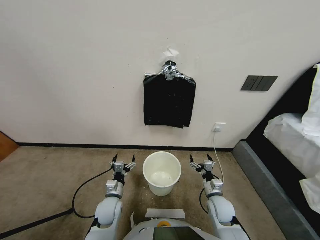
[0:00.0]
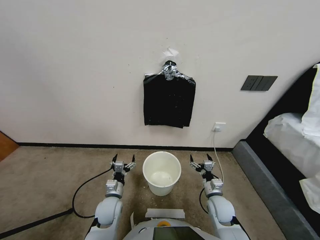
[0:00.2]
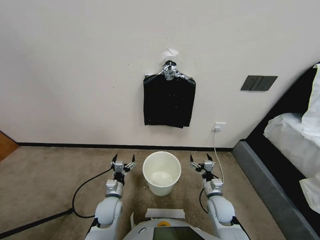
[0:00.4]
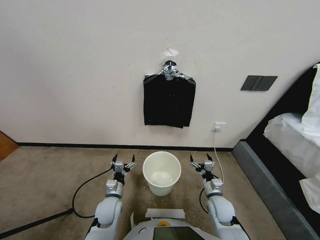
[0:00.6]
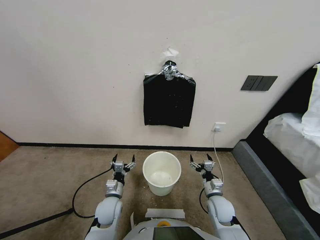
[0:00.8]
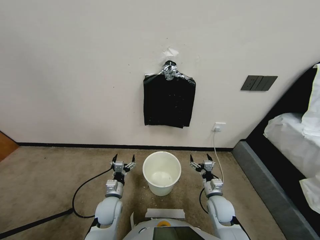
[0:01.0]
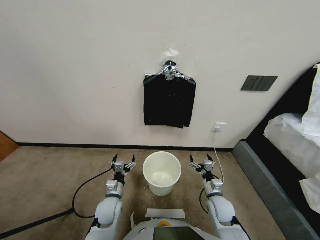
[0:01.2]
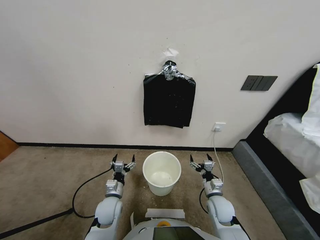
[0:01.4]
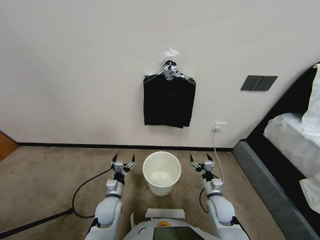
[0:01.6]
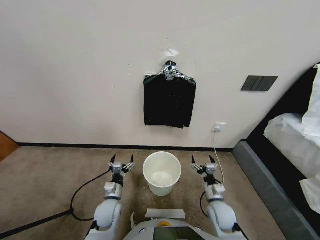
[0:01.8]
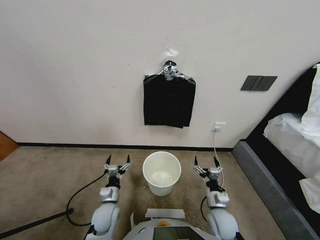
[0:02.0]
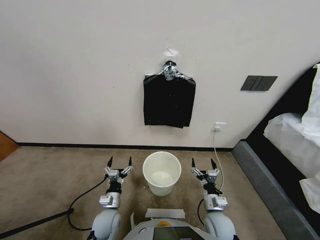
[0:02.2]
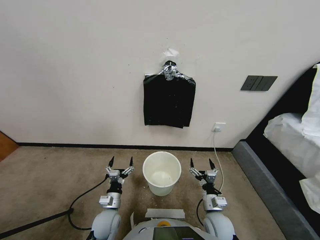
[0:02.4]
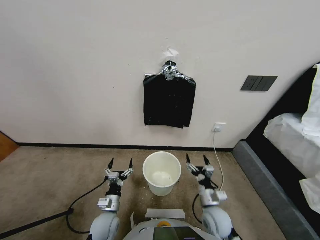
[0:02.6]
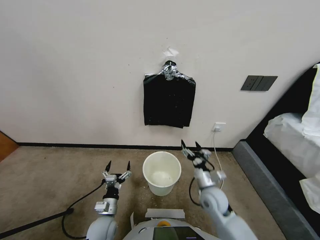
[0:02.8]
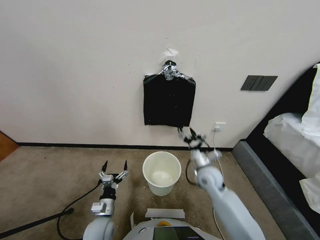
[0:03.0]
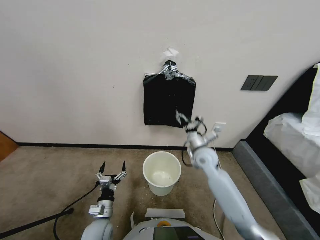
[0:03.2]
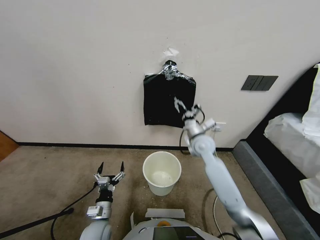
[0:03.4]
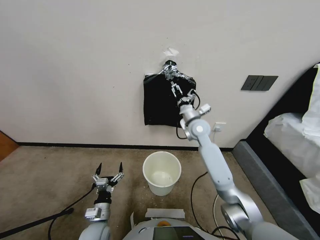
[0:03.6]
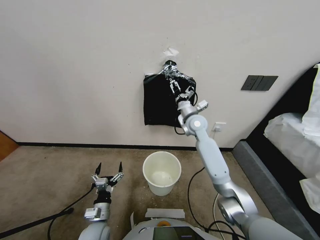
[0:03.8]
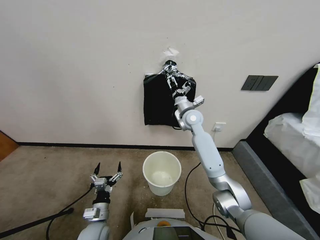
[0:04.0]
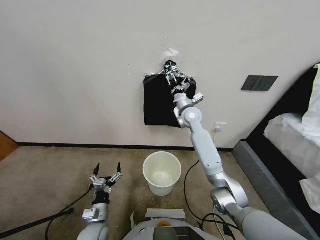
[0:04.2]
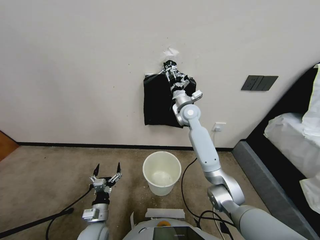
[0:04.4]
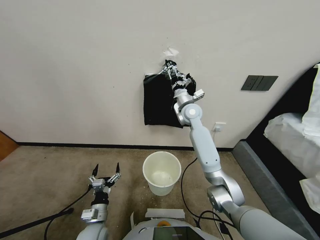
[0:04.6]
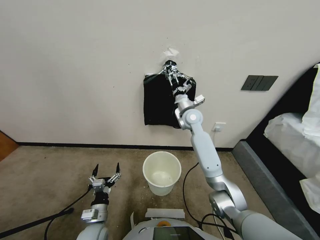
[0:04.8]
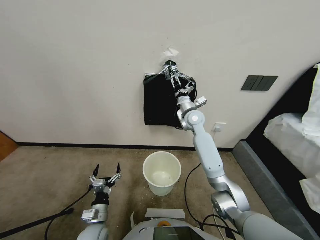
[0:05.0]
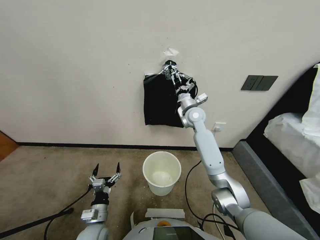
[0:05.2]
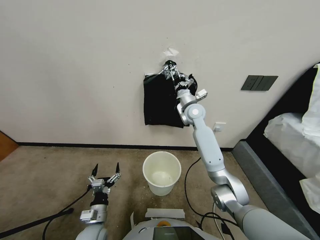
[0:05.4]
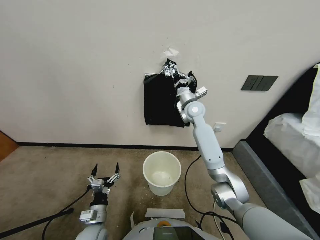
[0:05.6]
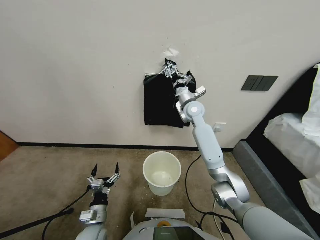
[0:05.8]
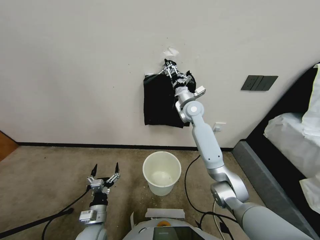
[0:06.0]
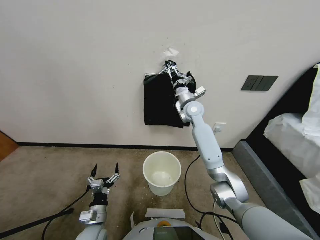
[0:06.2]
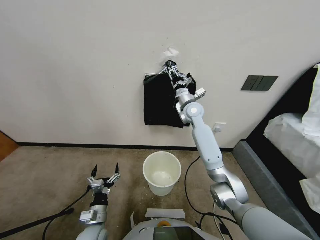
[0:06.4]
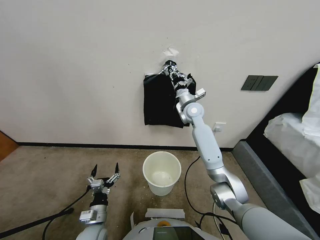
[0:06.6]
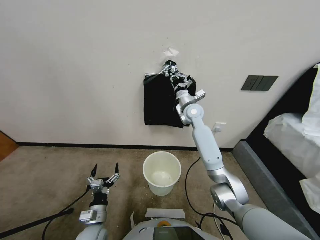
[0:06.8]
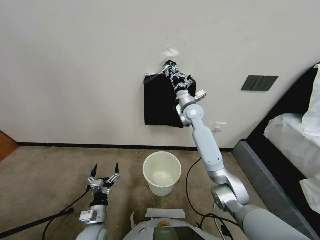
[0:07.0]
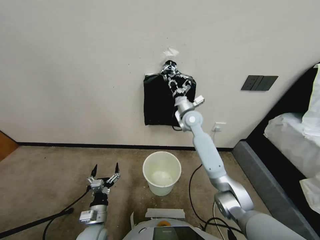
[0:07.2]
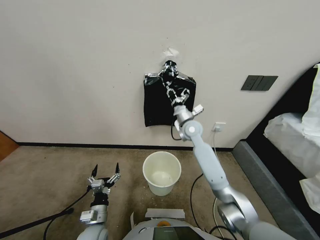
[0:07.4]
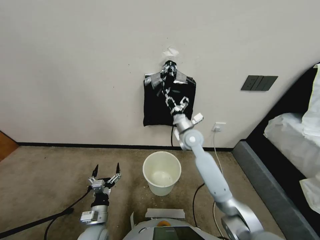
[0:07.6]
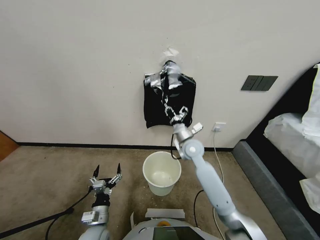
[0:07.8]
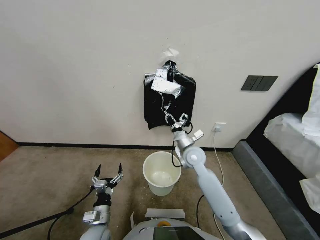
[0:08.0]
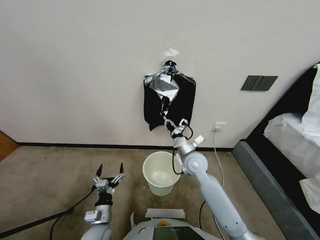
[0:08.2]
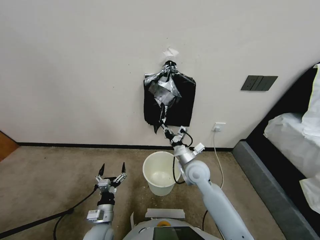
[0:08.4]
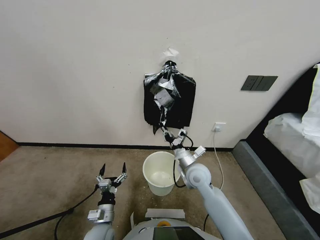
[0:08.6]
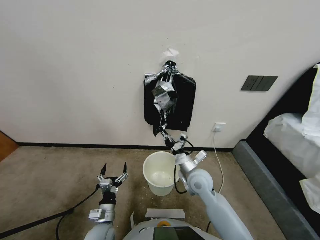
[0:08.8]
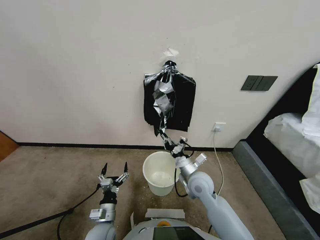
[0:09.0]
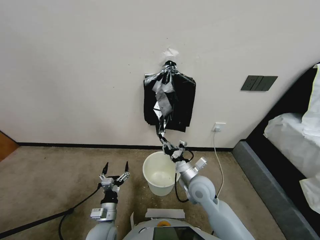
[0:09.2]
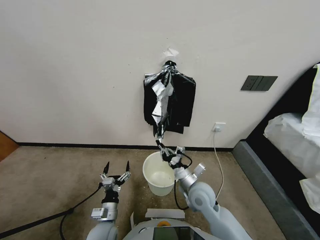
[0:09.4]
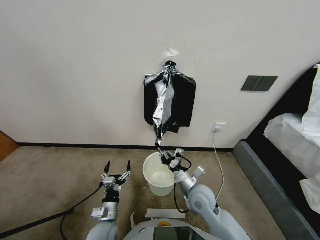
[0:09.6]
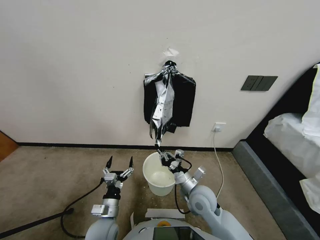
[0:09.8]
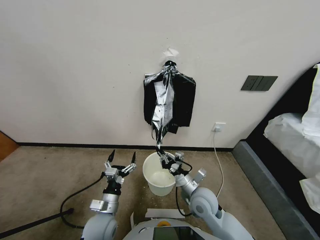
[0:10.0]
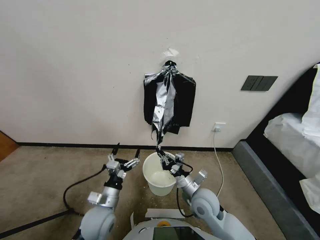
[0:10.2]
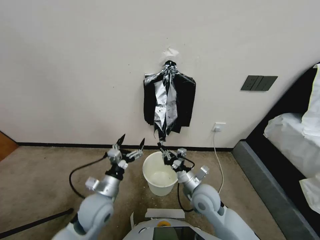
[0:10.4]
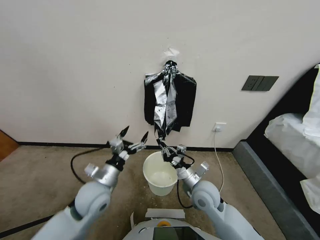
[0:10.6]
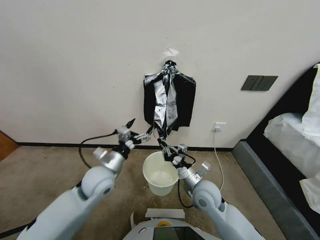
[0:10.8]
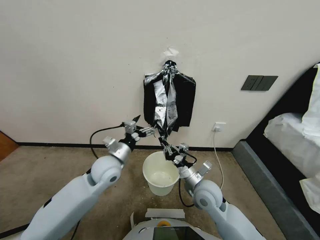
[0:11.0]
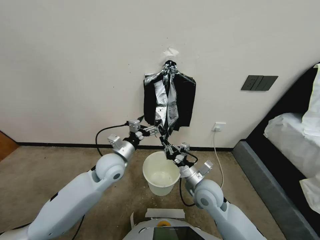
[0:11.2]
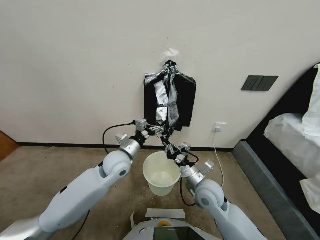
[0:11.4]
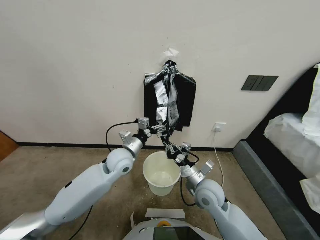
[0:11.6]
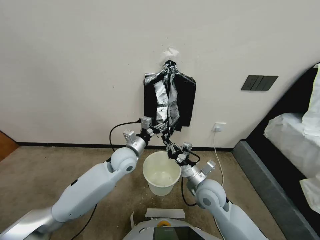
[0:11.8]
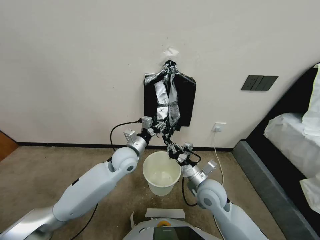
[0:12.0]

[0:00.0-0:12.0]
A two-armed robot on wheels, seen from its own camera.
Task of the whole recording: Place a trash bag onto the trash bin.
0:01.6 to 0:03.0: The right gripper moves upward and forward, roughly 20 cm. Meanwhile the left gripper shifts about 5 cm backward.
0:03.0 to 0:04.4: The right gripper heads forward and upward, covering approximately 20 cm.
0:04.4 to 0:06.0: The grippers stay close to where they were, moving slightly.
0:06.0 to 0:07.6: The right gripper heads backward and downward, covering about 15 cm, and closes up.
0:07.6 to 0:09.0: The right gripper is displaced backward and downward by about 15 cm.
0:09.0 to 0:10.4: The left gripper travels upward and forward by roughly 15 cm.
0:10.4 to 0:12.0: The left gripper shifts about 15 cm forward and to the right, and closes its fingers.

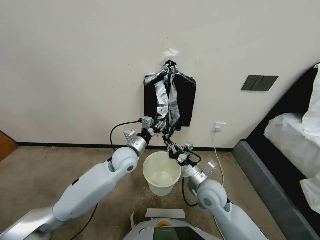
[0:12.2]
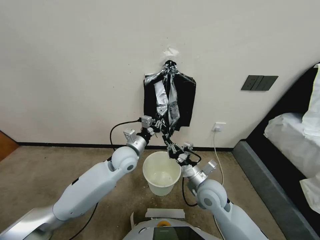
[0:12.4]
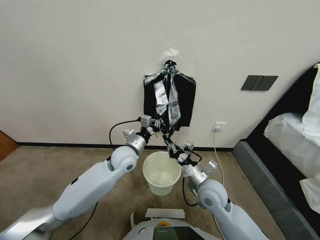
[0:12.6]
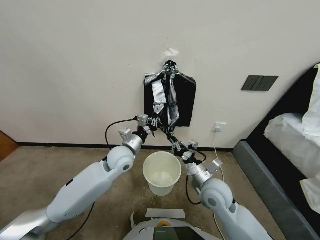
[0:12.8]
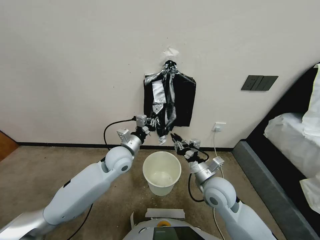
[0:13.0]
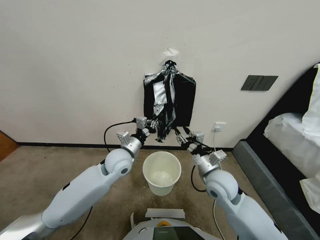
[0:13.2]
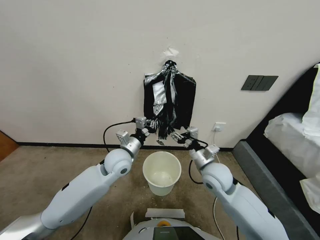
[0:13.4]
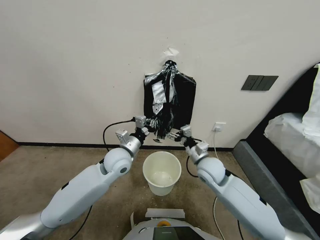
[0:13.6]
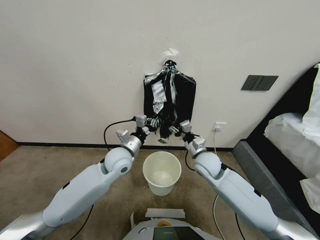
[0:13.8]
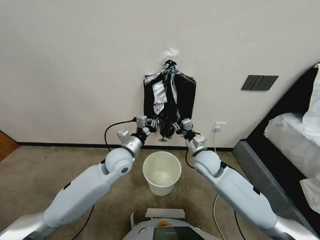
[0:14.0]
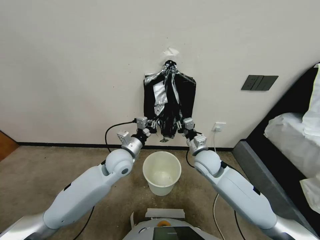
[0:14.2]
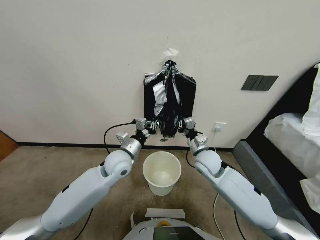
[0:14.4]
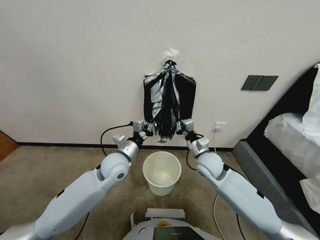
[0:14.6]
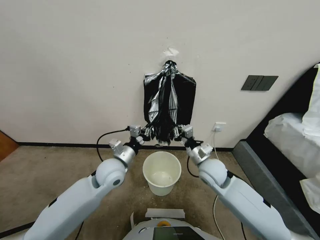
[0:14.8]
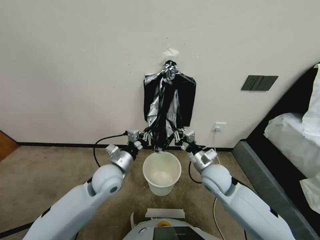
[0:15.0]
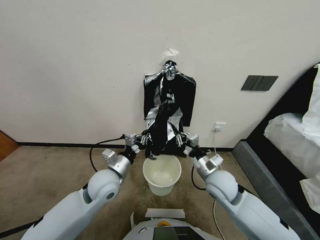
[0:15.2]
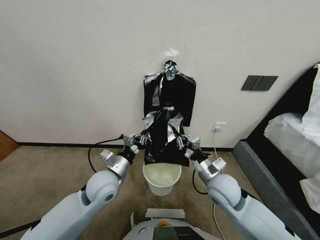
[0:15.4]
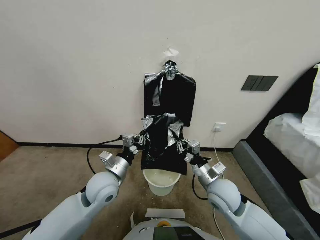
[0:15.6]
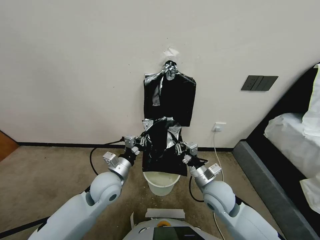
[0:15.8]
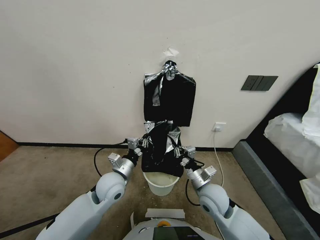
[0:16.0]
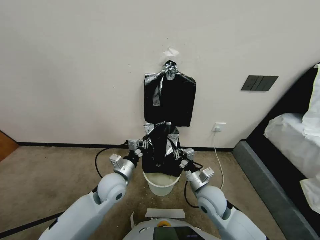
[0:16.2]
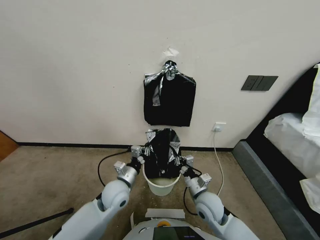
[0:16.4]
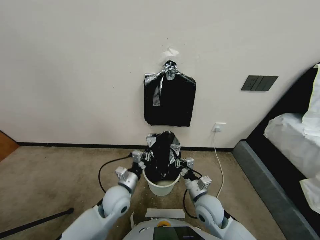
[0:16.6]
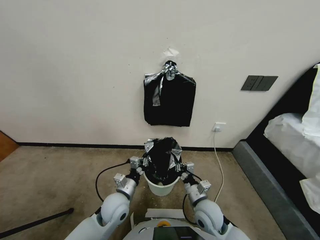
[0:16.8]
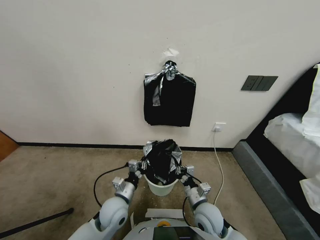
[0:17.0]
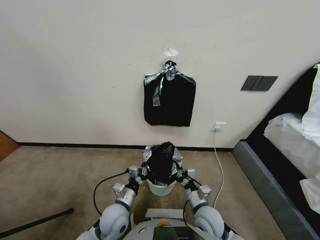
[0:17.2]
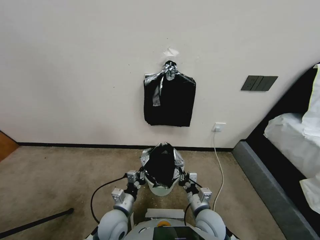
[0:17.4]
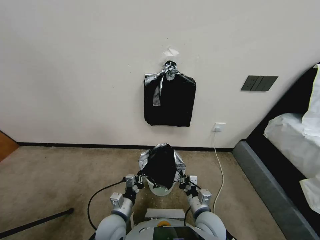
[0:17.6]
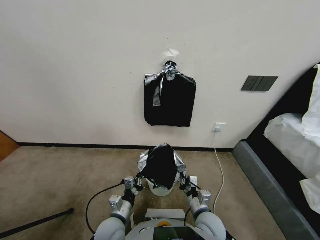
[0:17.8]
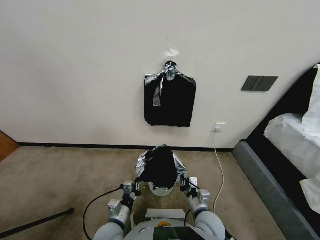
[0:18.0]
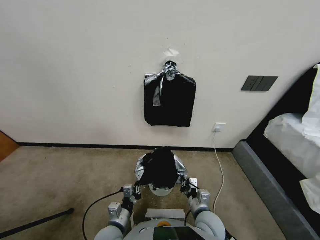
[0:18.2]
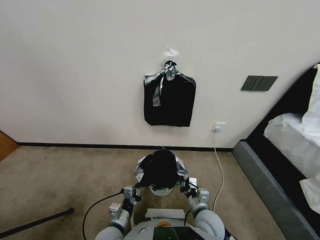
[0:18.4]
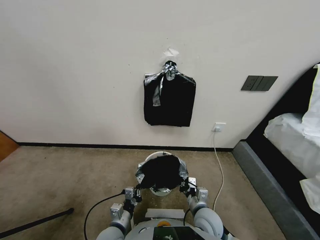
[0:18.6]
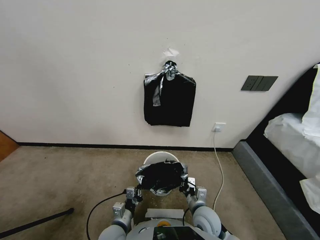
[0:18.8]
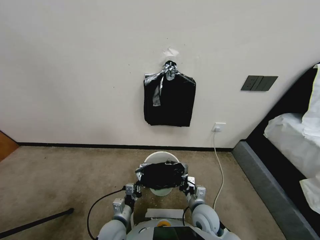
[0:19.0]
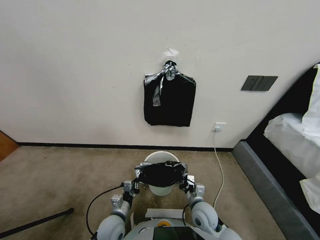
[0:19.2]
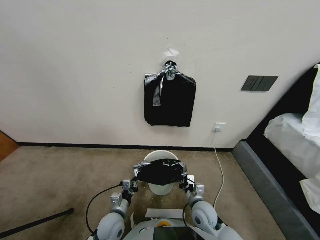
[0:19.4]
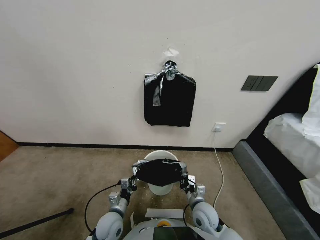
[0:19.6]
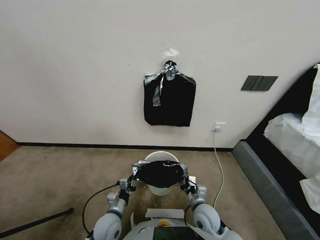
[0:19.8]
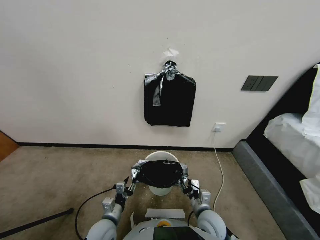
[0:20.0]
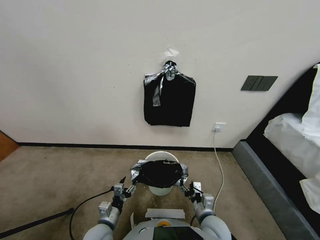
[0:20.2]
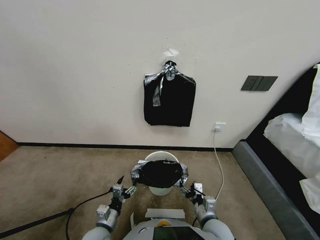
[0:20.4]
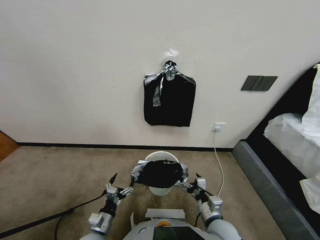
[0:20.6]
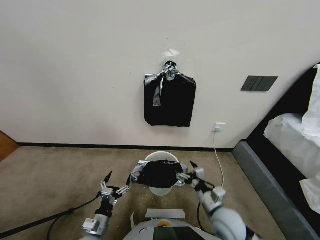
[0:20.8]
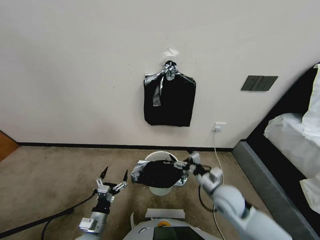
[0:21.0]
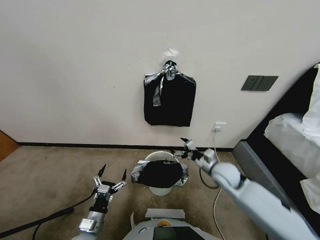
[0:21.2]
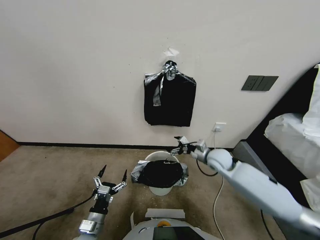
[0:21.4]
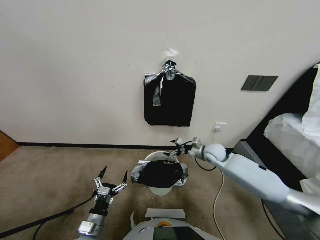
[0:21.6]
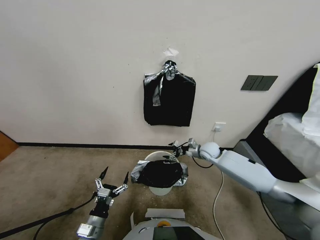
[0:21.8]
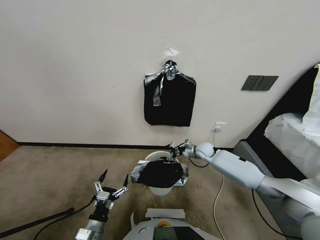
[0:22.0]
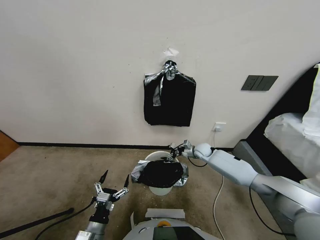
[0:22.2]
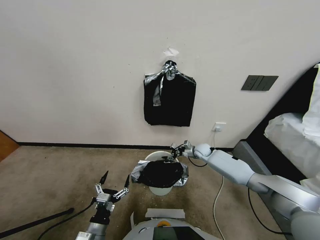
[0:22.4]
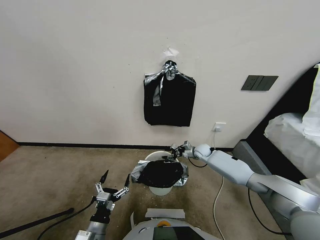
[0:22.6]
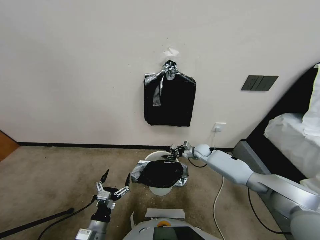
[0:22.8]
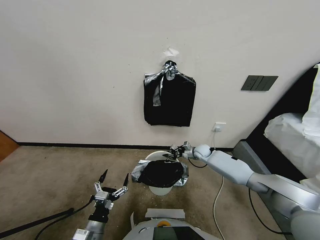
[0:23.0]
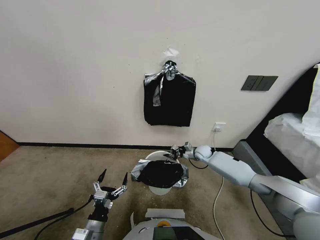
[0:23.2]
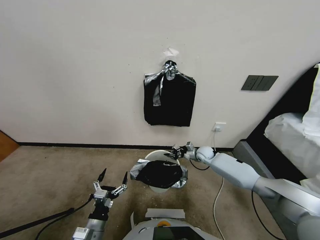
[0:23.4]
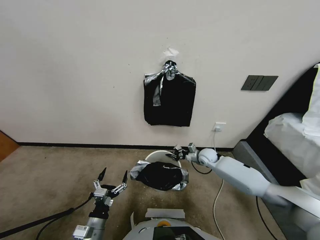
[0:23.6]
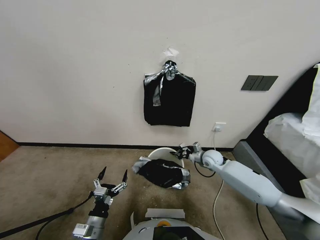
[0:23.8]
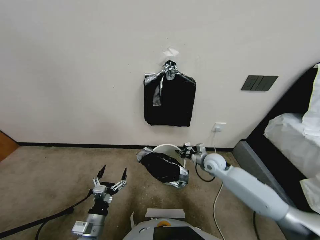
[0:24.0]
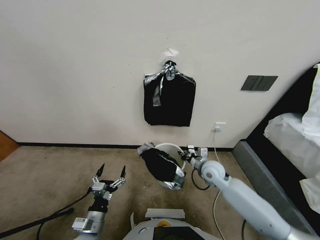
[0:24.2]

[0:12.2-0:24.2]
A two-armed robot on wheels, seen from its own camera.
Task of the whole recording: Place a trash bag onto the trash bin.
0:12.2 to 0:13.8: The right gripper moves forward, approximately 10 cm, and opens its fingers.
0:13.8 to 0:15.2: The grippers both shift backward by roughly 10 cm. The right gripper closes.
0:15.2 to 0:16.6: The two grippers go roughly 10 cm downward.
0:16.6 to 0:18.2: The left gripper travels backward and downward by about 10 cm.
0:18.2 to 0:19.8: The left gripper moves approximately 5 cm, and opens. The right gripper opens its fingers.
0:19.8 to 0:21.2: The left gripper moves roughly 5 cm, and opens its fingers. Meanwhile the right gripper shifts about 25 cm forward and upward, and opens up.
0:21.2 to 0:22.6: The right gripper shifts about 20 cm forward and downward, and closes its fingers.
0:22.6 to 0:24.2: The right gripper is displaced backward and upward by roughly 20 cm, and closes.
